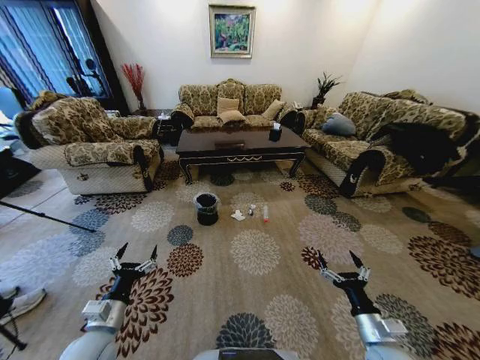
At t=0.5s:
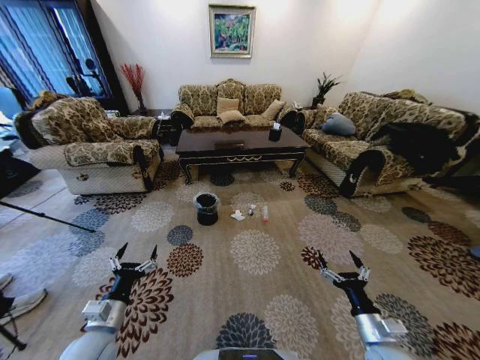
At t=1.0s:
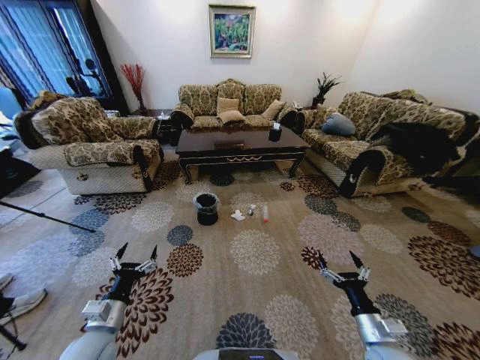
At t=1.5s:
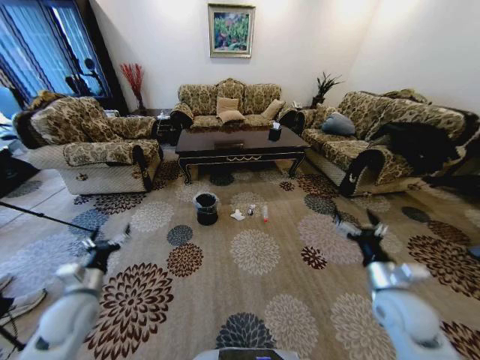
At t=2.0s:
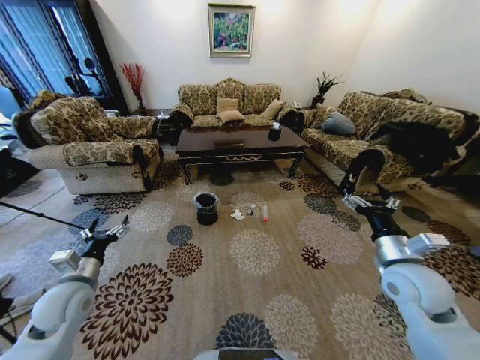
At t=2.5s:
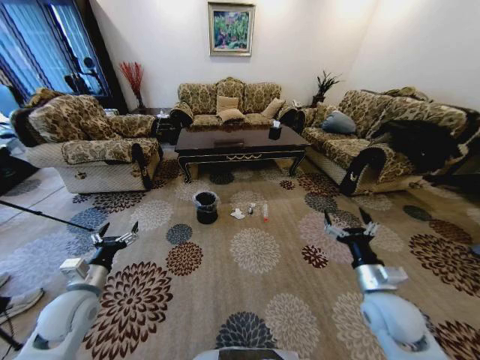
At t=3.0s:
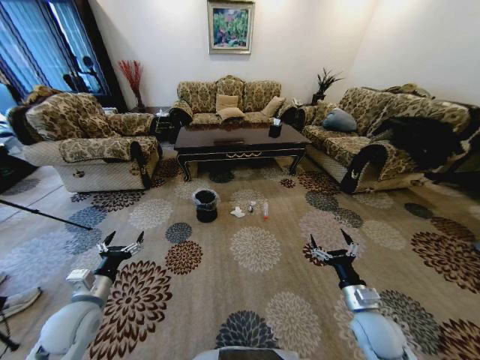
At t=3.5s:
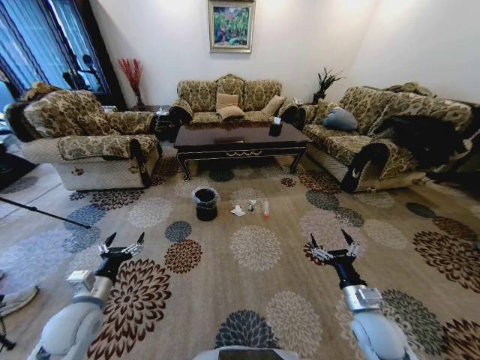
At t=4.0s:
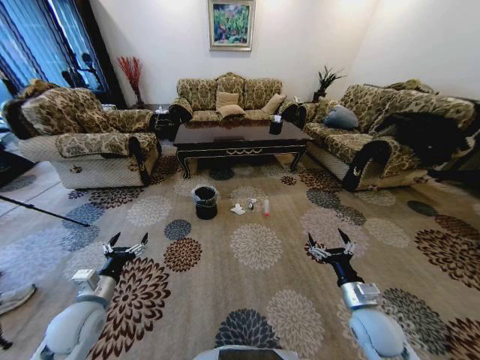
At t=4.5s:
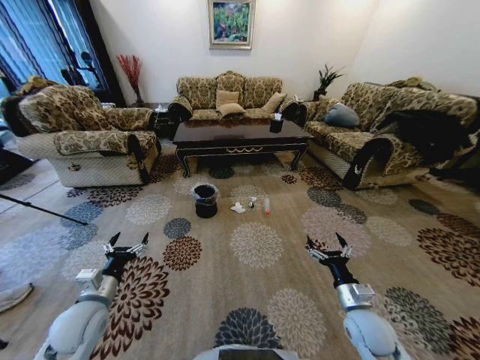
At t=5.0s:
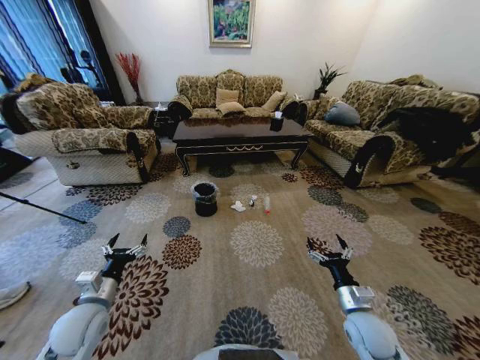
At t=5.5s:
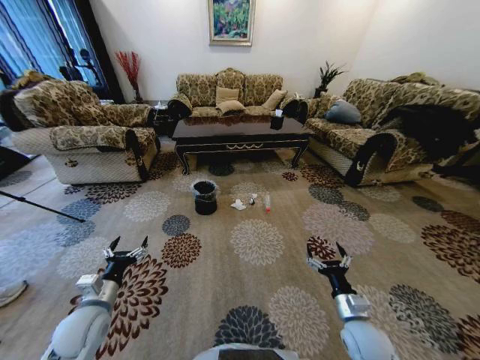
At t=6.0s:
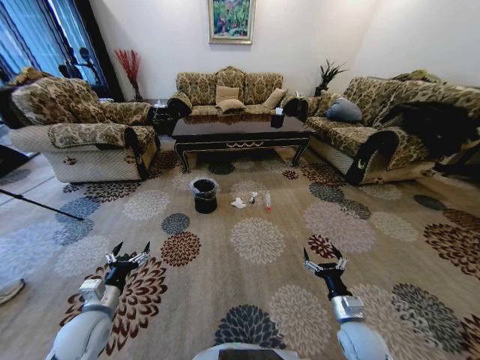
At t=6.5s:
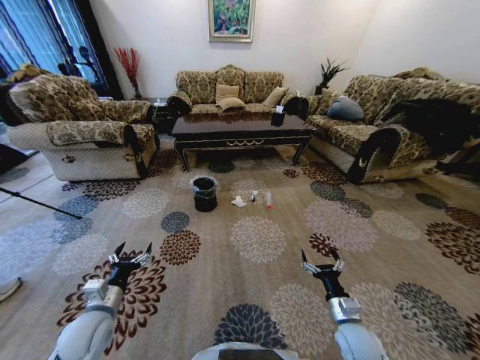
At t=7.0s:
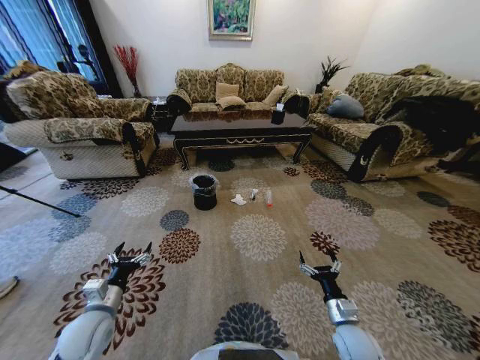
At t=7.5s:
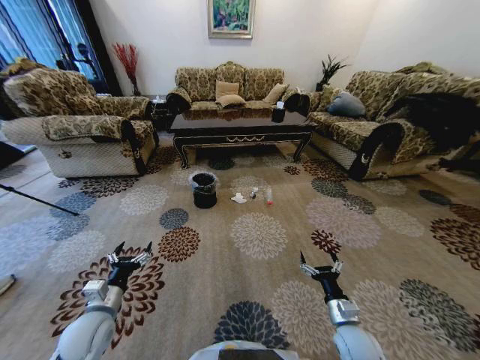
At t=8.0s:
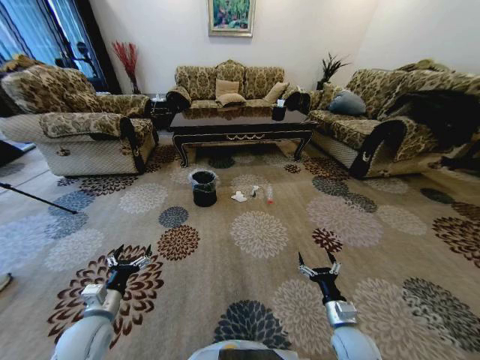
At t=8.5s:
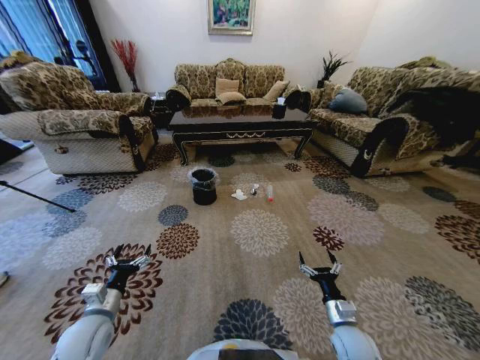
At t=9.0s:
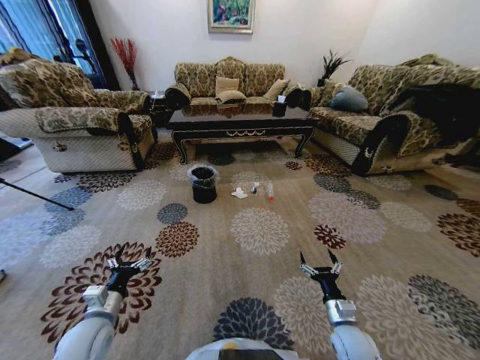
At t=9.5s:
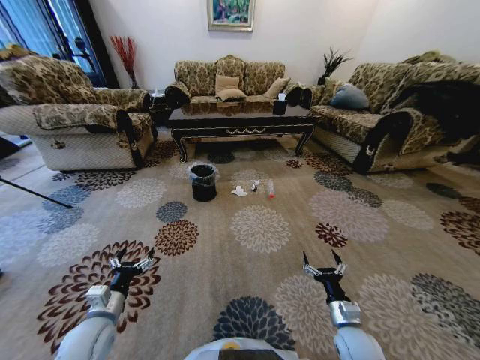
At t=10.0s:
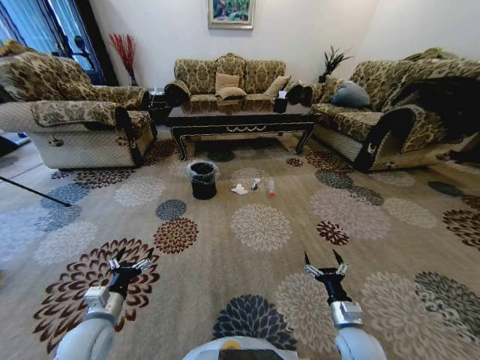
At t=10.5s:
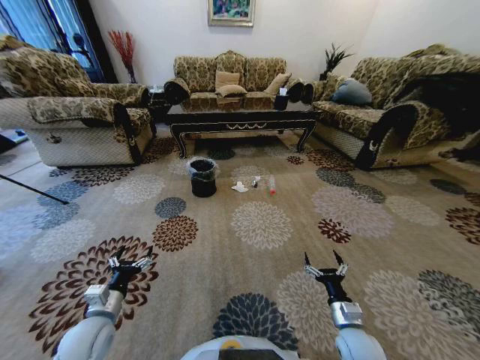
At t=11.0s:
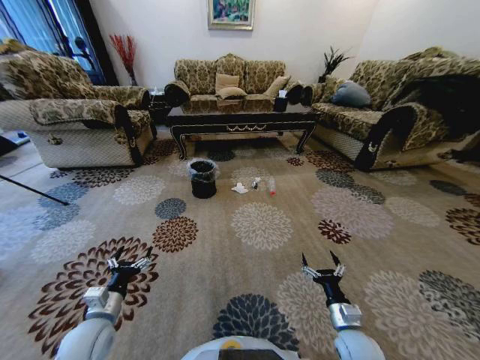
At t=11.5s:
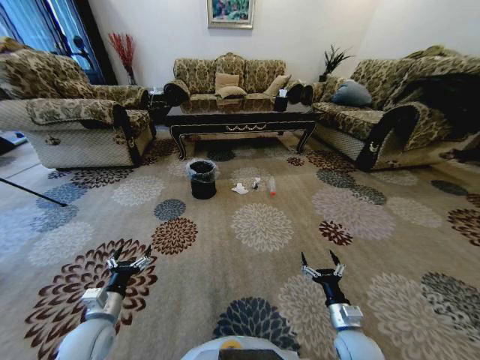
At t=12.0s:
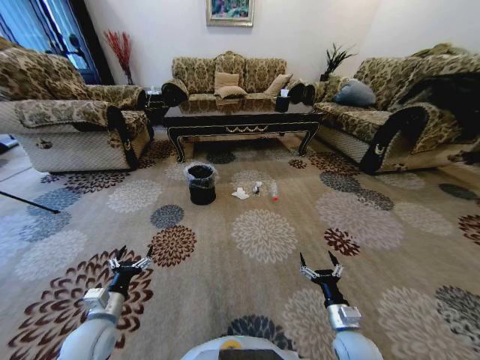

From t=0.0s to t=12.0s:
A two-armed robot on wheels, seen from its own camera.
Task of the whole recording: Move to the front of the table and pick up the trash from the floor, then place it into the trash bin.
From t=2.0s to t=4.0s: The right gripper goes some 15 cm downward, while the left gripper ends up some 5 cm from where it was.
From t=4.0s to t=6.0s: The right gripper moves downward, about 5 cm.

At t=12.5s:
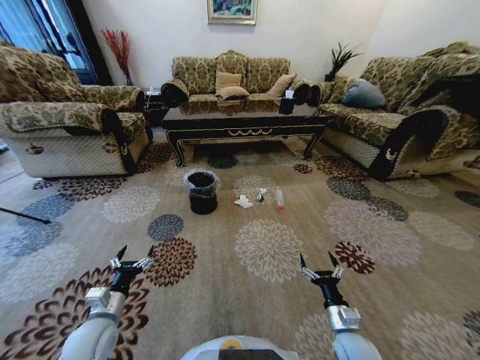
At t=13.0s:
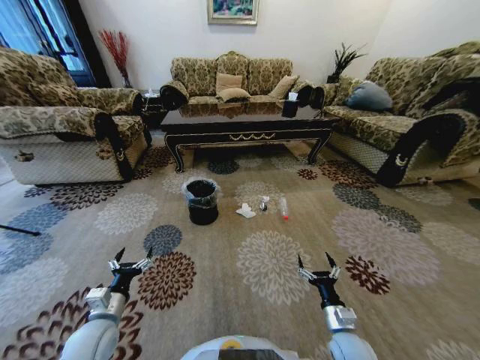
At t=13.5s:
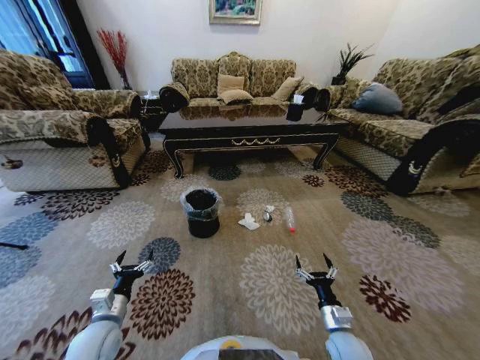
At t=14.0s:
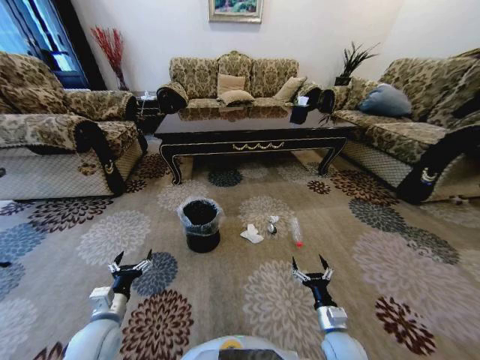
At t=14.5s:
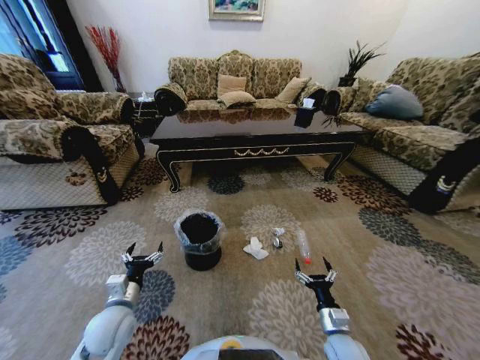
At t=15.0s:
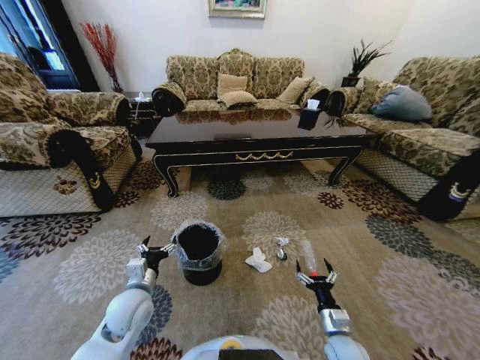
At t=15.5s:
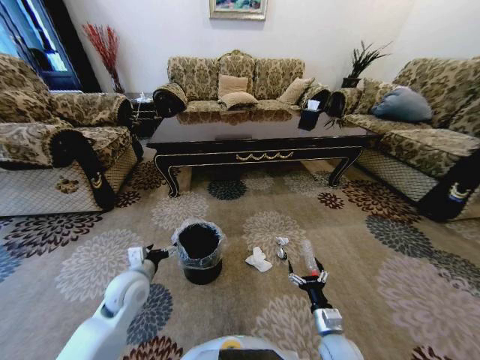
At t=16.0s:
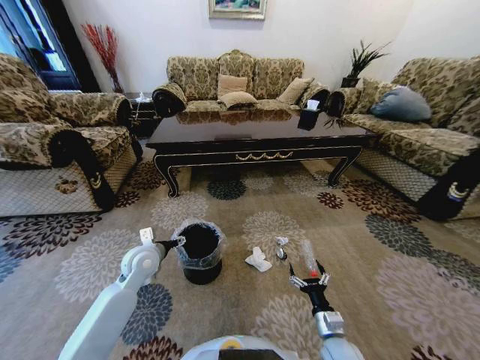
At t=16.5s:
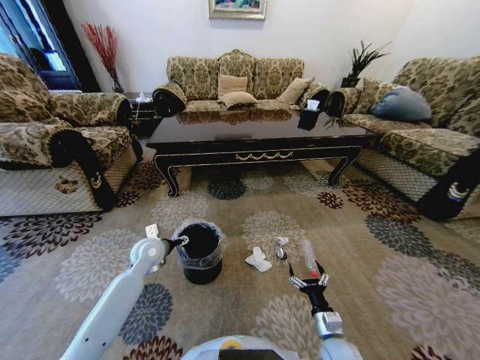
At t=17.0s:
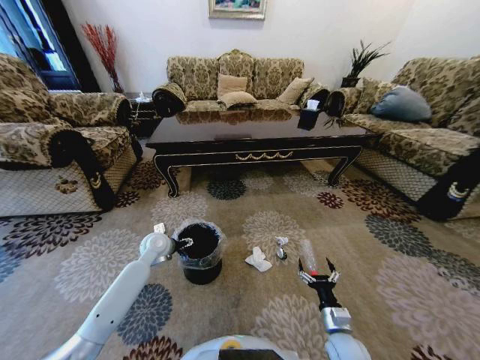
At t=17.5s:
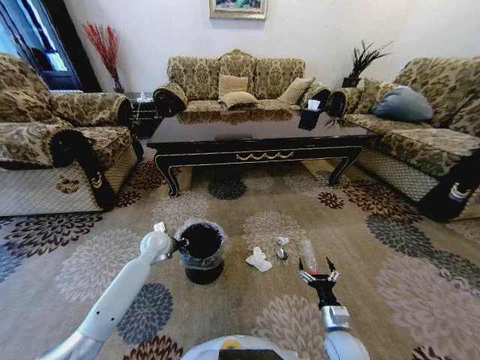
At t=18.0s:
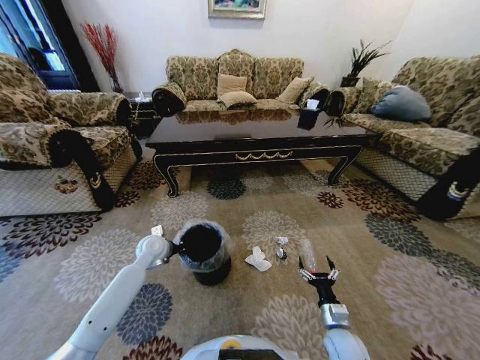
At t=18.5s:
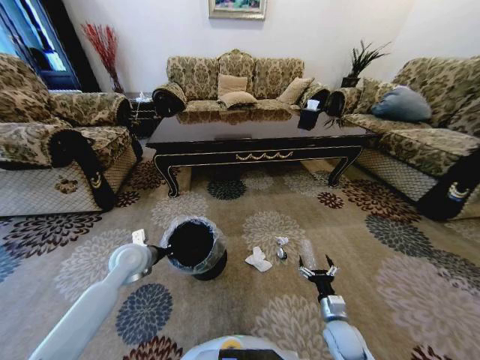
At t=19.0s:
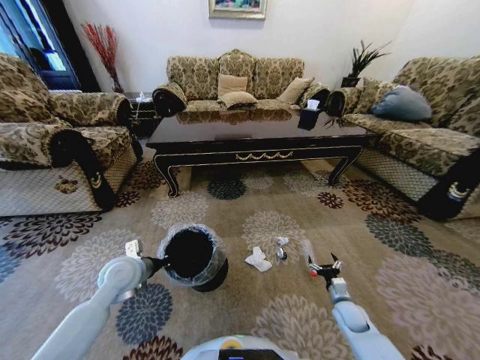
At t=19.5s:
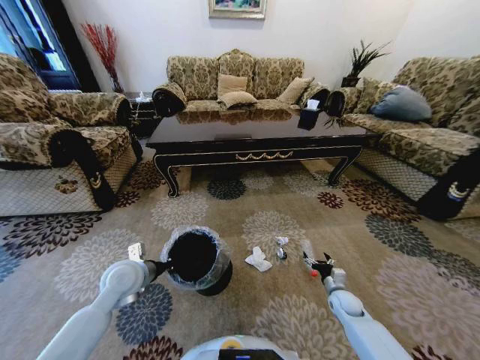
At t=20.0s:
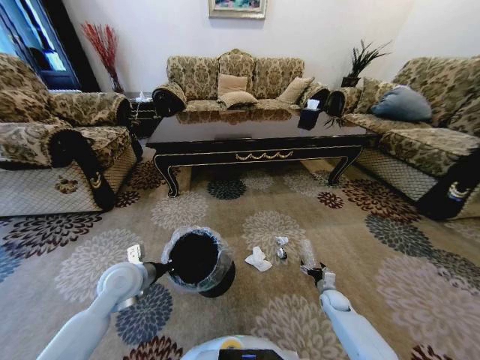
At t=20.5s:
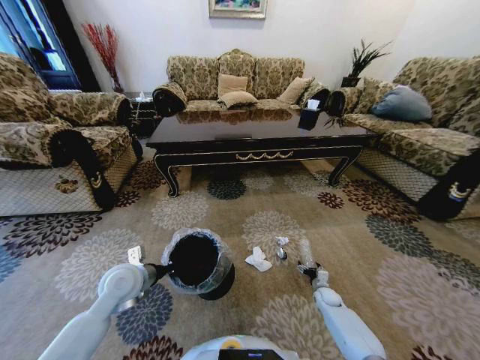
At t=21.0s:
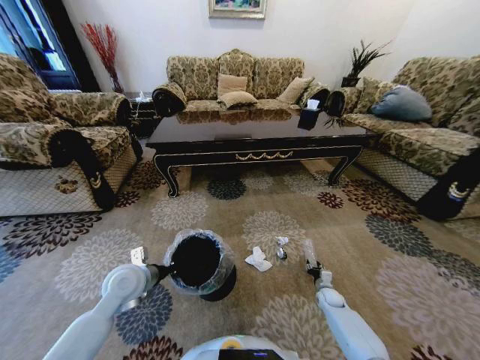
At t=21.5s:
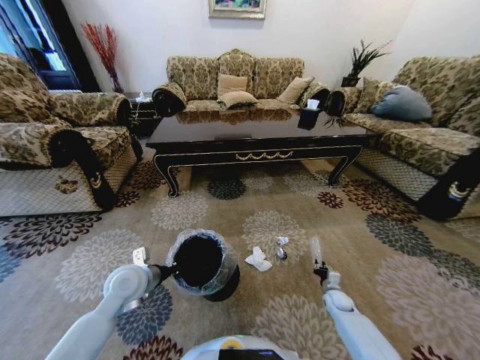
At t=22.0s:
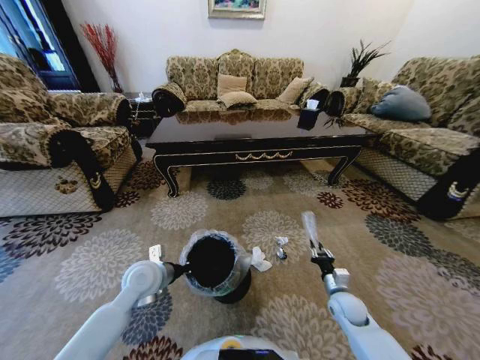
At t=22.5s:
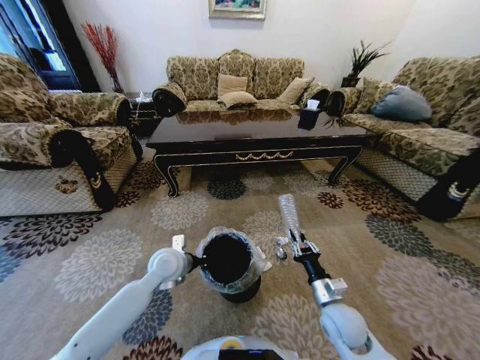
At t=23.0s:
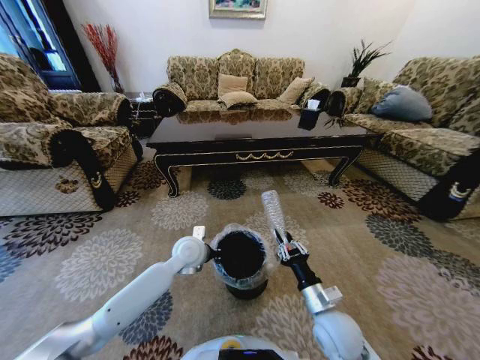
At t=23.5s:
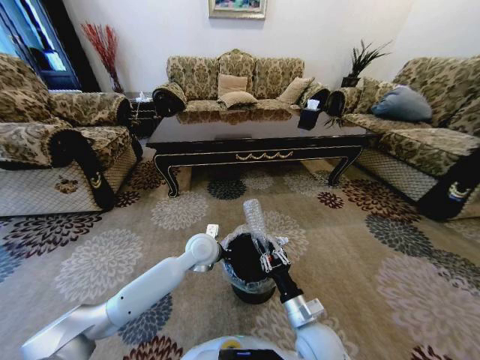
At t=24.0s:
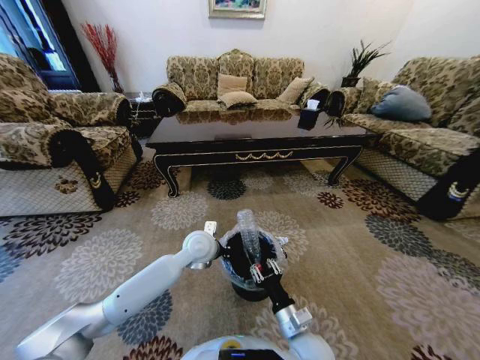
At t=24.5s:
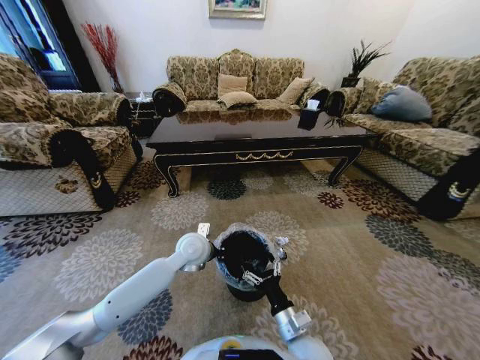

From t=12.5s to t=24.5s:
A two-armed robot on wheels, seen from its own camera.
Task of the whole recording: Move to the front of the table and pick up the trash from the floor, then place it into the trash bin.
From t=14.5s to t=16.5s: The left gripper travels forward by approximately 20 cm.
From t=16.5s to t=18.5s: The left gripper changes place by about 5 cm, and closes up, while the right gripper ends up some 5 cm from where it was.
From t=18.5s to t=20.5s: The right gripper heads forward, downward and to the right, covering roughly 20 cm. Meanwhile the left gripper is displaced backward by approximately 5 cm.
From t=20.5s to t=22.5s: The left gripper is displaced to the right and forward by roughly 10 cm; the right gripper is displaced upward, to the left and backward by some 30 cm, and closes.
From t=22.5s to t=24.5s: The right gripper travels to the left and backward by approximately 15 cm, and opens. Meanwhile the left gripper is displaced to the right by approximately 5 cm.

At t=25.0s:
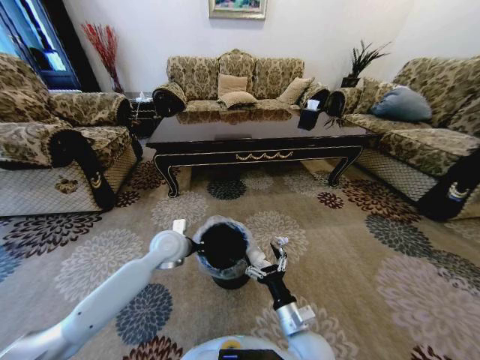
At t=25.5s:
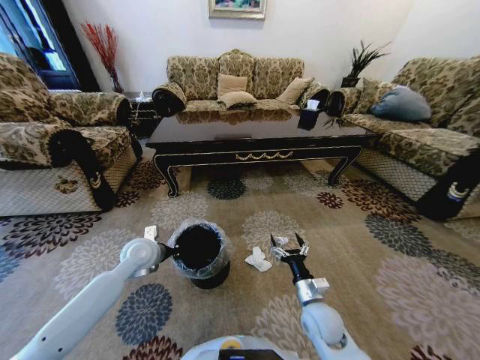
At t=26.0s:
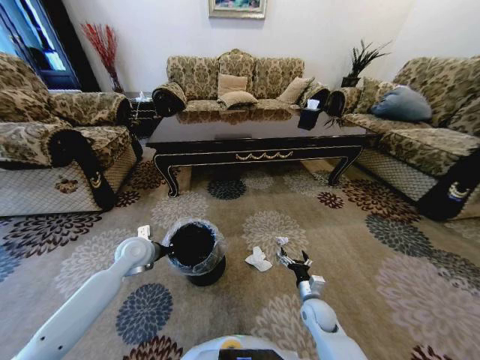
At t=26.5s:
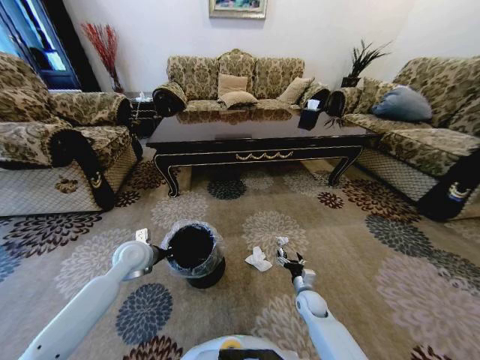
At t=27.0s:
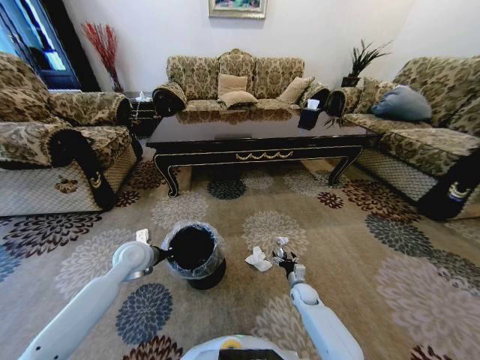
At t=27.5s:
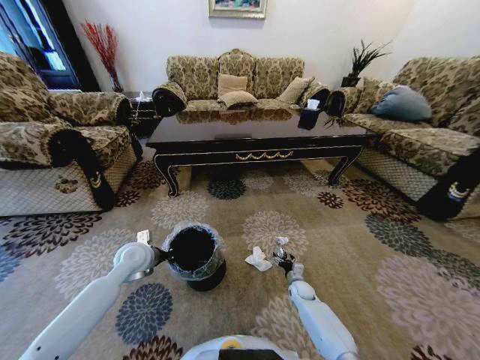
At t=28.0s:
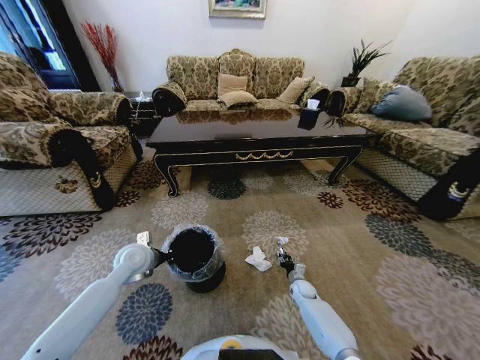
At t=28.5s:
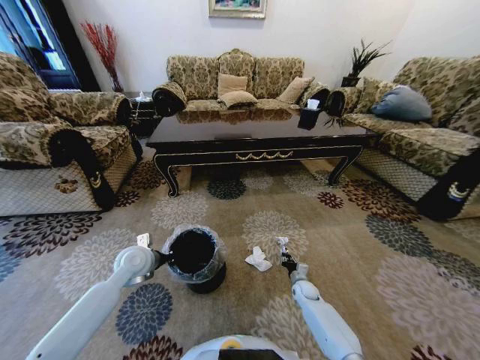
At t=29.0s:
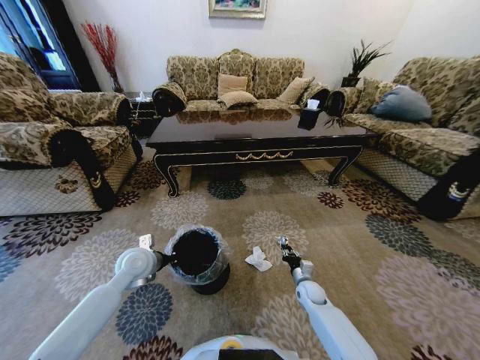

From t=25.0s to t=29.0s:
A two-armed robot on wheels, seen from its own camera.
Task of the whole recording: Move to the front of the table and pick up the trash from the floor, then place it into the trash bin.
From t=25.0s to t=27.0s: The left gripper is displaced to the left by roughly 10 cm; the right gripper heads downward, forward and to the right, covering some 30 cm.
From t=27.0s to t=29.0s: The right gripper closes.
